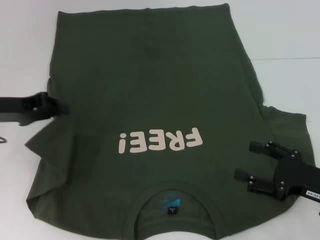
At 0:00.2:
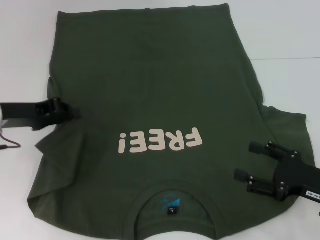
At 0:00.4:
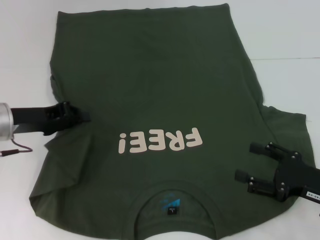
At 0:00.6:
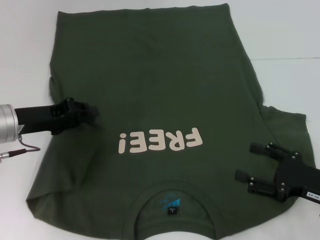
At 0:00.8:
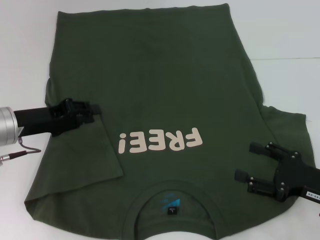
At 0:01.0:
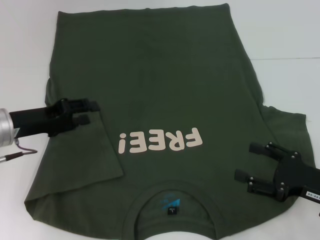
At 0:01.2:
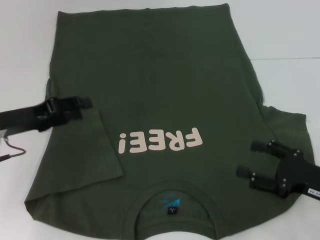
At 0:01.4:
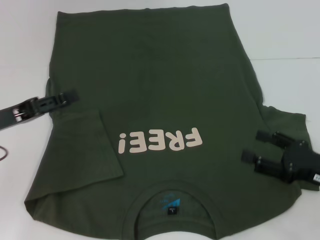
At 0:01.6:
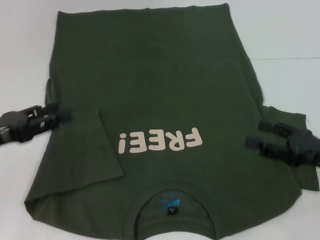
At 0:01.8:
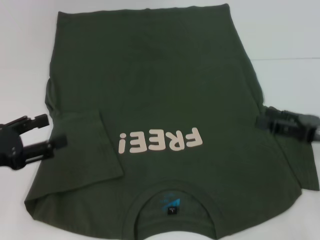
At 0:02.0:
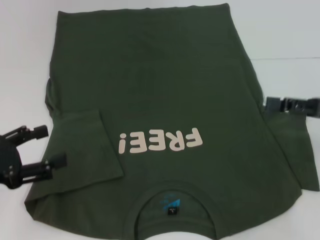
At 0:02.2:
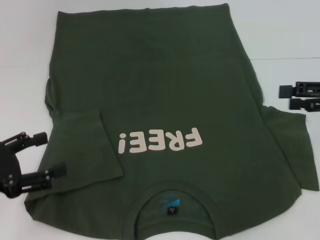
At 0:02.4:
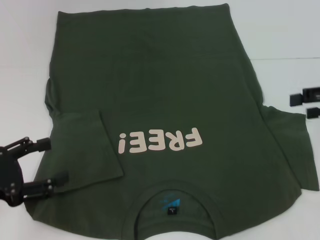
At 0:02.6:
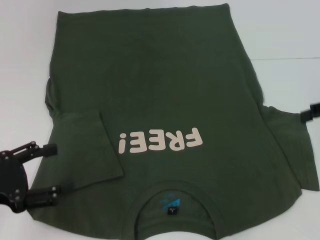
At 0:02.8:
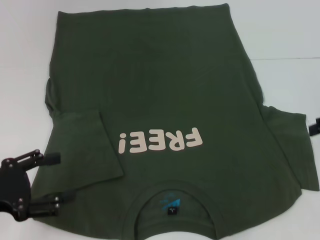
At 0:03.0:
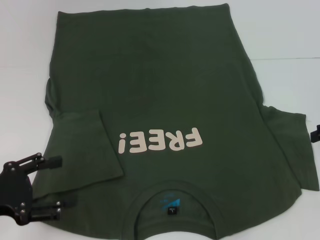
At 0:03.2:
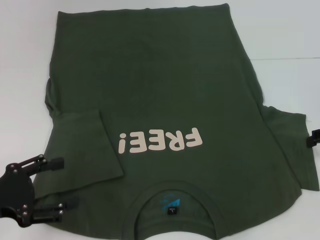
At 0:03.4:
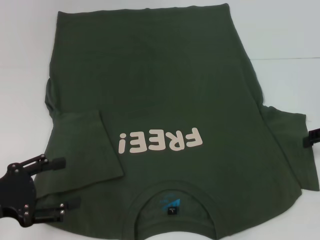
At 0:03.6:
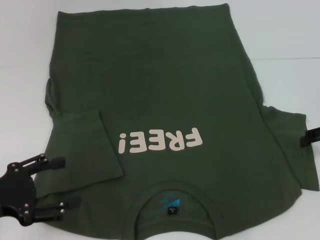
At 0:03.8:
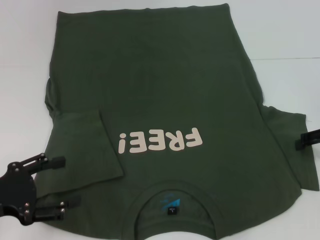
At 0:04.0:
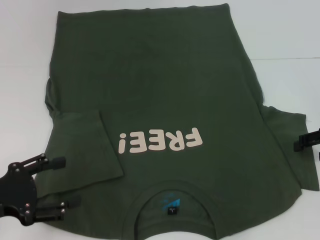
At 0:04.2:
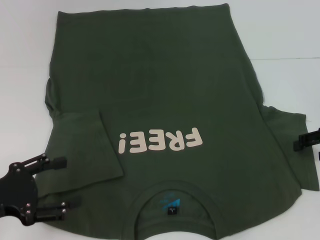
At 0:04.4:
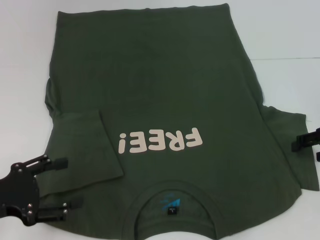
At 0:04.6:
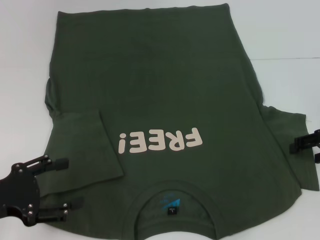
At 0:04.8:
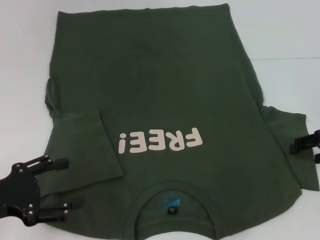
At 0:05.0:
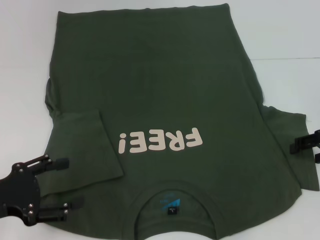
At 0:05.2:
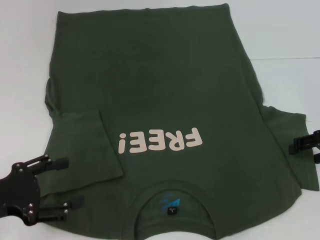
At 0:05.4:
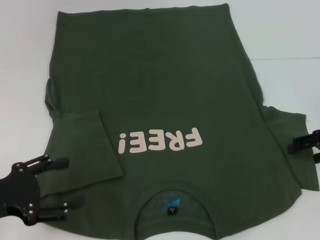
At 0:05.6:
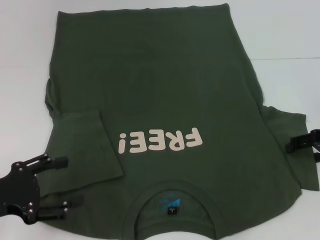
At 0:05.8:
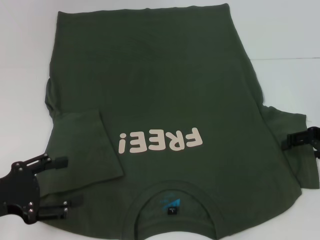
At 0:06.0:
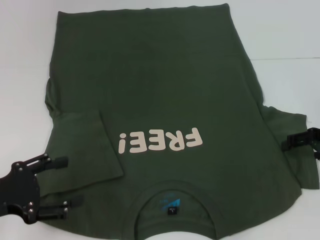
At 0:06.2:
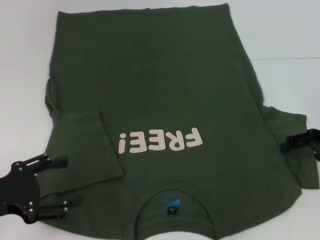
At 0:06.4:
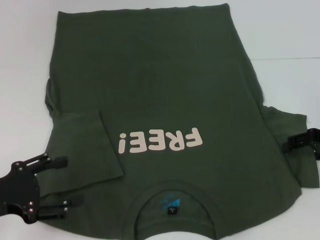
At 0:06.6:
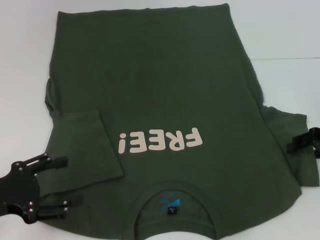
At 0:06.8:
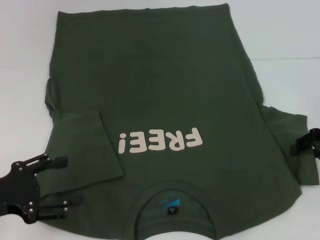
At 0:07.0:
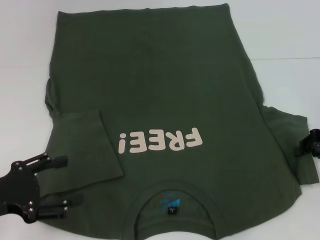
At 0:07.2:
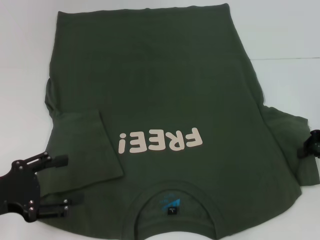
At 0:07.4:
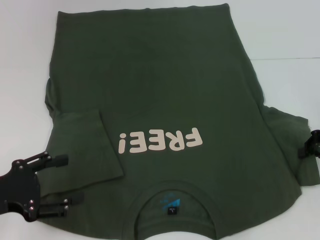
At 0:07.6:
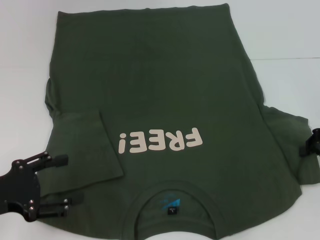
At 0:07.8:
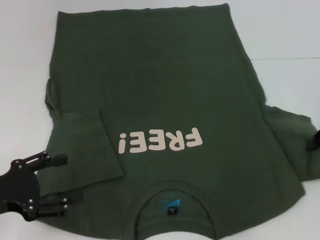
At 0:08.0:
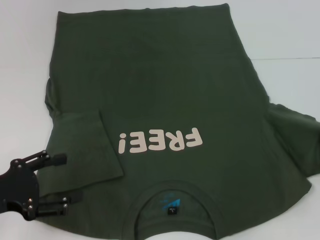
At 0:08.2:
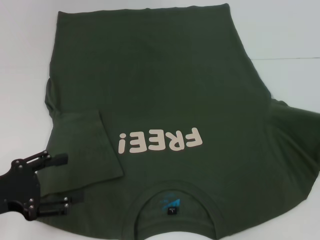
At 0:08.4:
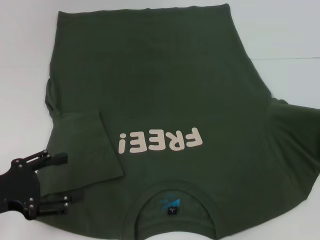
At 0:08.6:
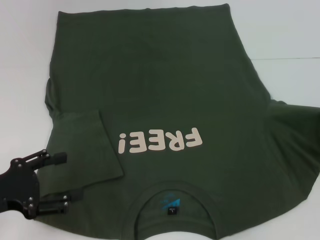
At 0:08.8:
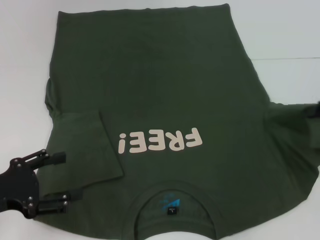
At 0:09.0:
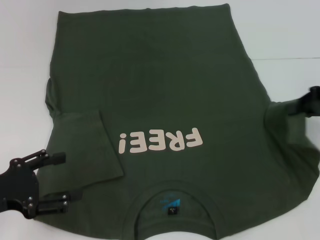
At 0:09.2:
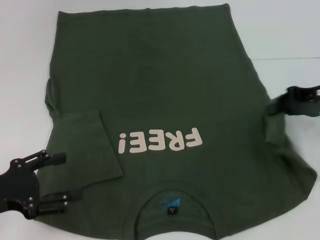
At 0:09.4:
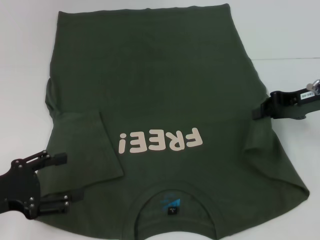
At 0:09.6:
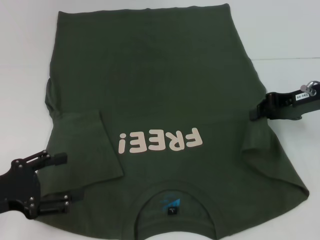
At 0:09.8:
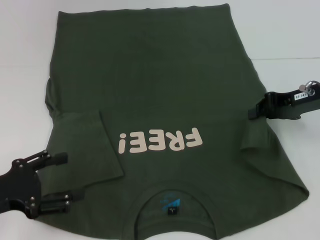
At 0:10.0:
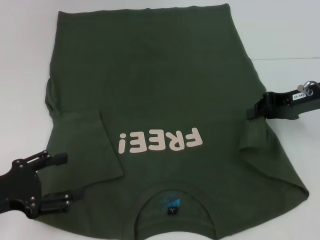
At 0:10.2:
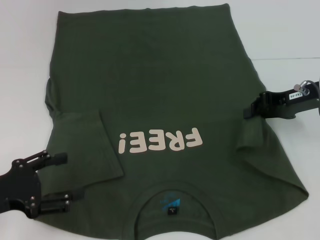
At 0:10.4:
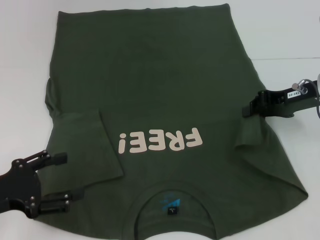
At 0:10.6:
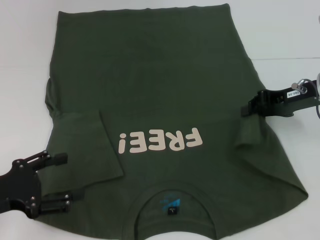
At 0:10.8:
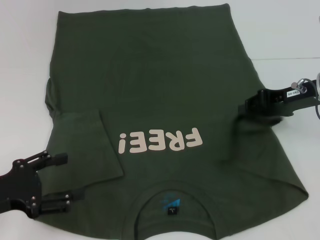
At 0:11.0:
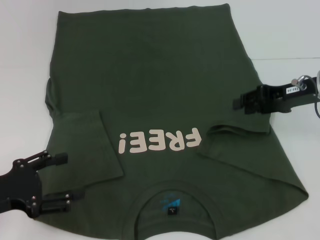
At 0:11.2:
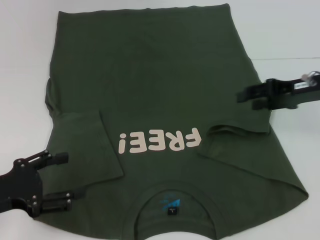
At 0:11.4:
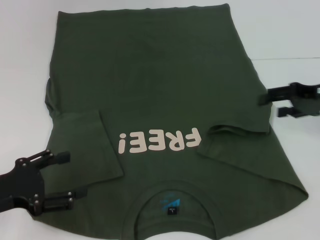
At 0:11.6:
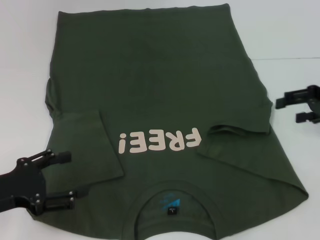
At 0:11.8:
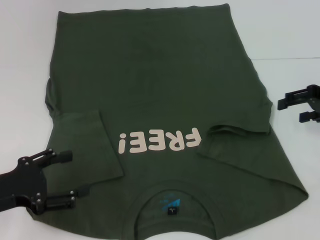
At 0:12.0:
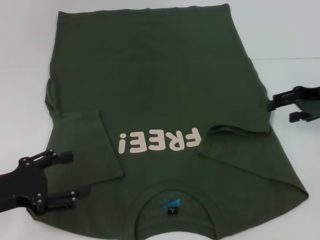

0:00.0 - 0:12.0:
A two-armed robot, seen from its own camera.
0:00.0 - 0:01.6: The left gripper heads backward, covering approximately 10 cm, and opens.
0:01.6 - 0:03.0: The left gripper travels backward by some 5 cm, while the right gripper goes some 15 cm forward, upward and to the right.
0:03.0 - 0:04.4: The grippers move only a little.
0:04.4 - 0:06.0: Neither gripper changes place.
0:06.0 - 0:07.6: The right gripper closes its fingers.
0:07.6 - 0:09.0: The right gripper moves upward, approximately 5 cm.
0:09.0 - 0:10.4: The right gripper moves to the left, about 5 cm.
0:10.4 - 0:12.0: The right gripper opens.

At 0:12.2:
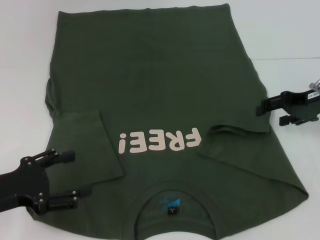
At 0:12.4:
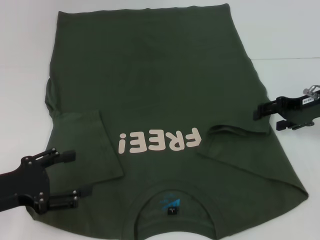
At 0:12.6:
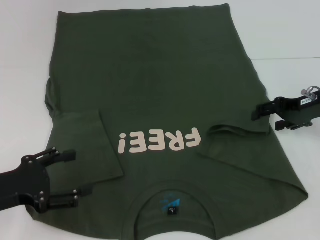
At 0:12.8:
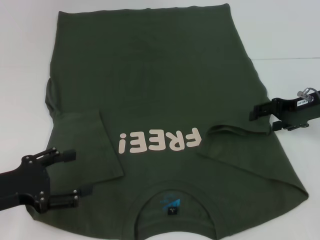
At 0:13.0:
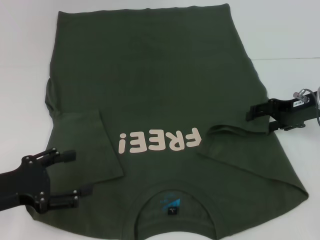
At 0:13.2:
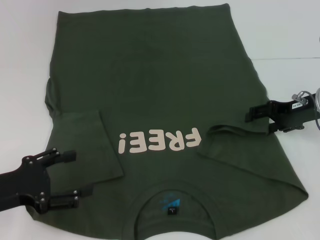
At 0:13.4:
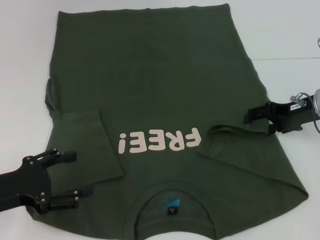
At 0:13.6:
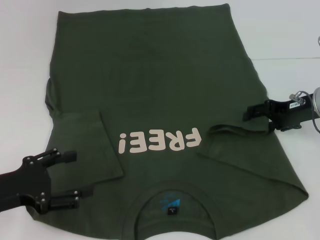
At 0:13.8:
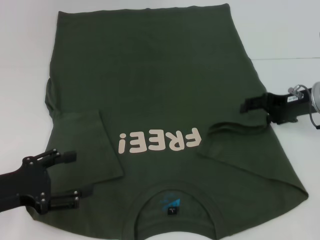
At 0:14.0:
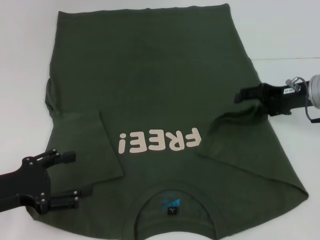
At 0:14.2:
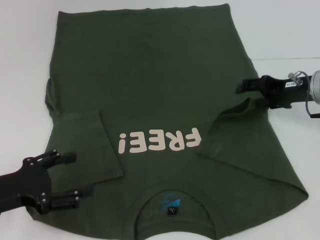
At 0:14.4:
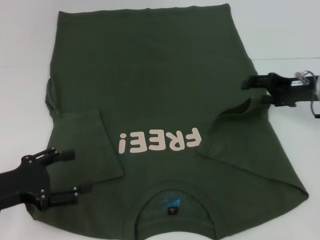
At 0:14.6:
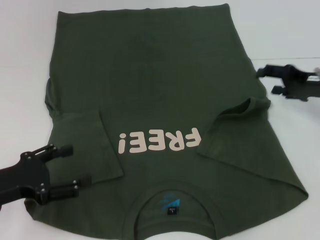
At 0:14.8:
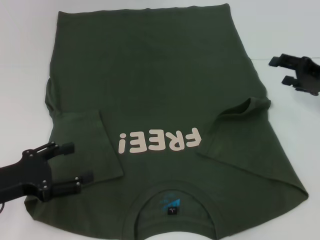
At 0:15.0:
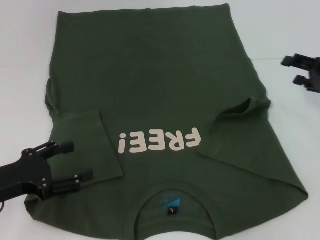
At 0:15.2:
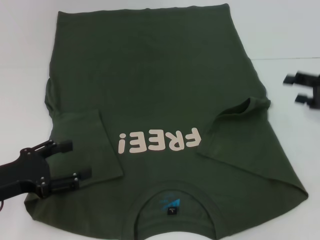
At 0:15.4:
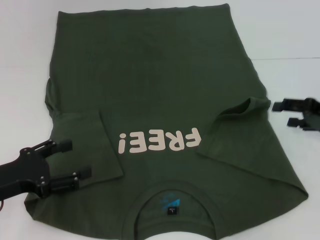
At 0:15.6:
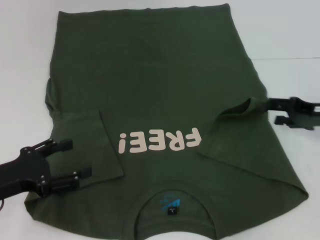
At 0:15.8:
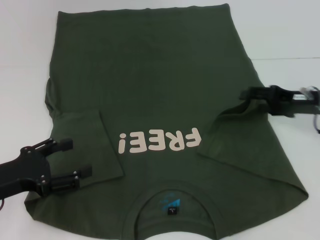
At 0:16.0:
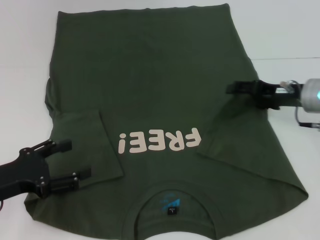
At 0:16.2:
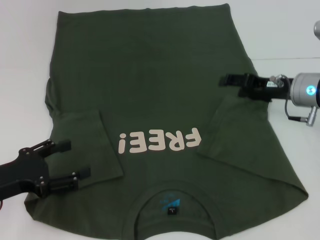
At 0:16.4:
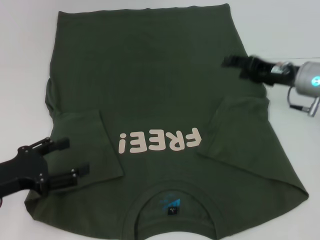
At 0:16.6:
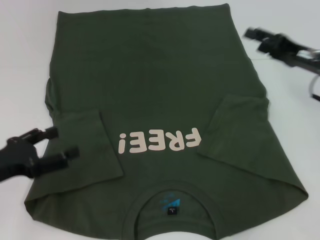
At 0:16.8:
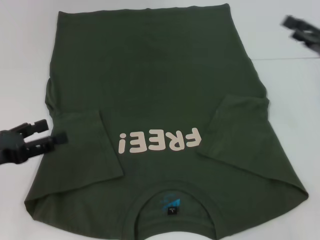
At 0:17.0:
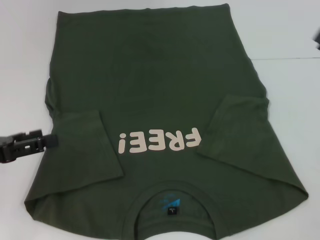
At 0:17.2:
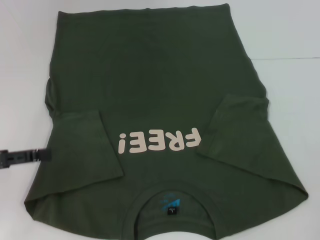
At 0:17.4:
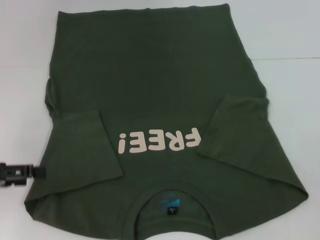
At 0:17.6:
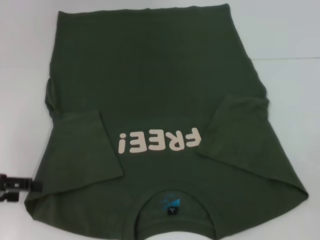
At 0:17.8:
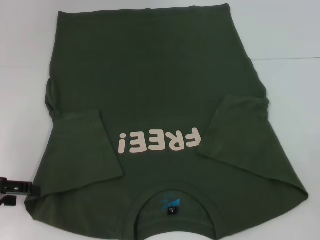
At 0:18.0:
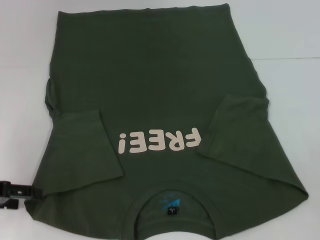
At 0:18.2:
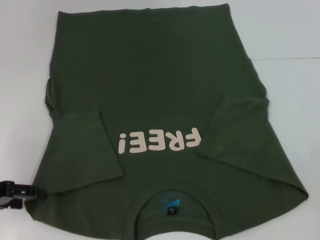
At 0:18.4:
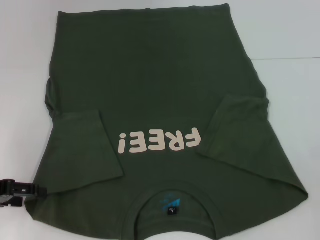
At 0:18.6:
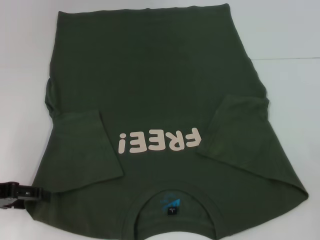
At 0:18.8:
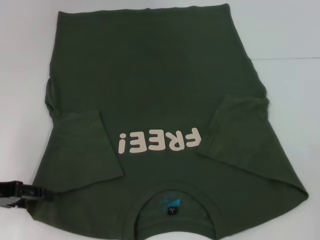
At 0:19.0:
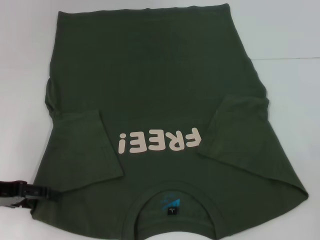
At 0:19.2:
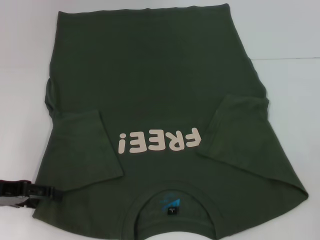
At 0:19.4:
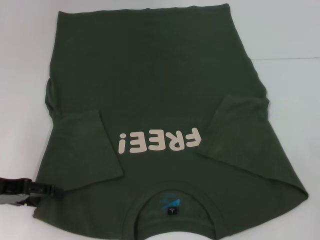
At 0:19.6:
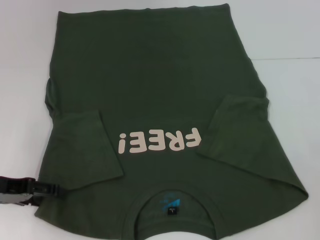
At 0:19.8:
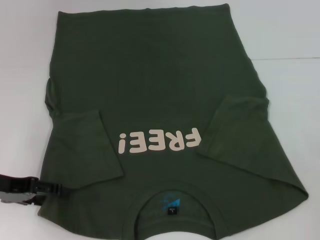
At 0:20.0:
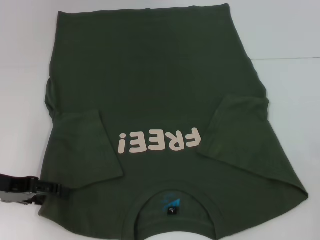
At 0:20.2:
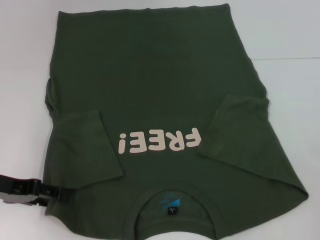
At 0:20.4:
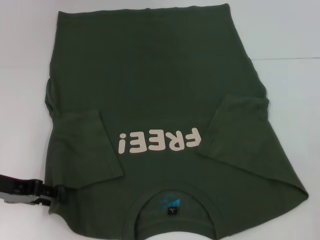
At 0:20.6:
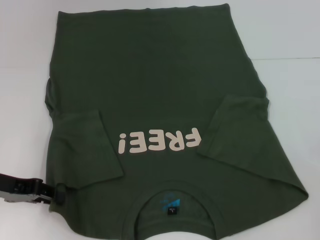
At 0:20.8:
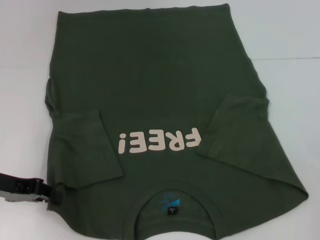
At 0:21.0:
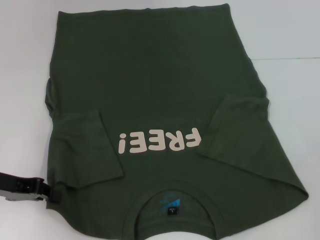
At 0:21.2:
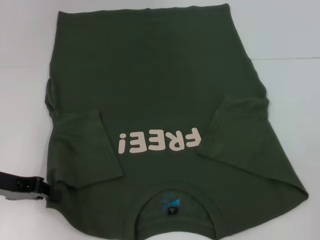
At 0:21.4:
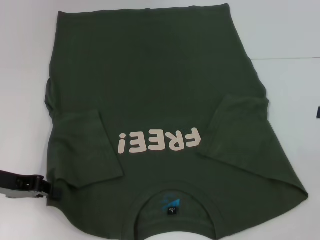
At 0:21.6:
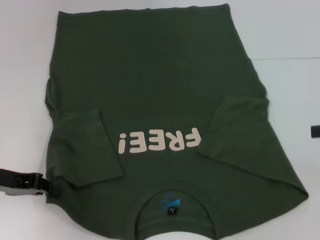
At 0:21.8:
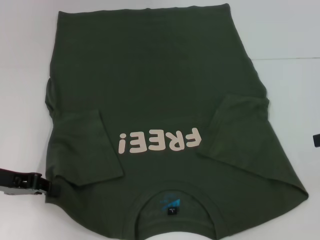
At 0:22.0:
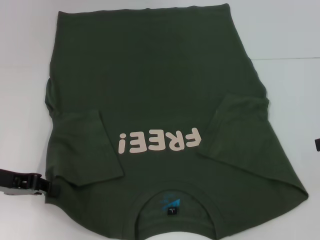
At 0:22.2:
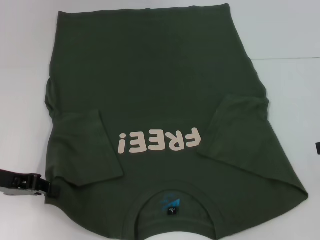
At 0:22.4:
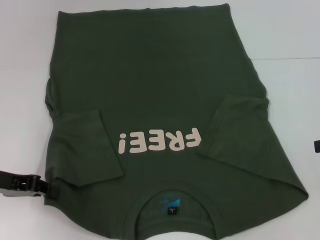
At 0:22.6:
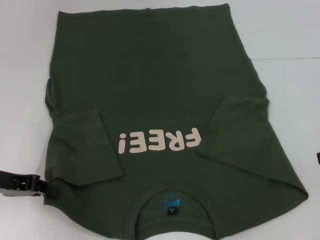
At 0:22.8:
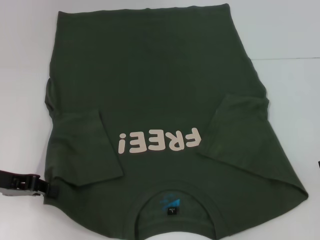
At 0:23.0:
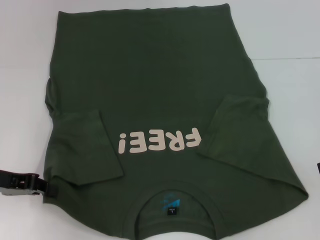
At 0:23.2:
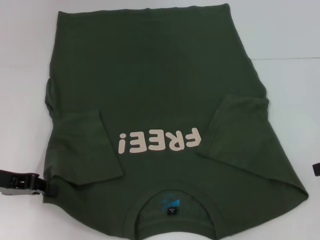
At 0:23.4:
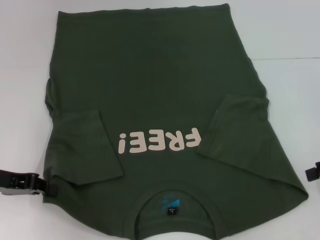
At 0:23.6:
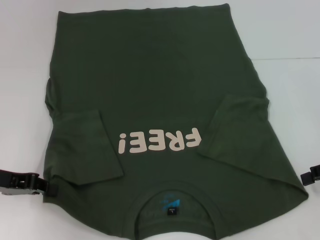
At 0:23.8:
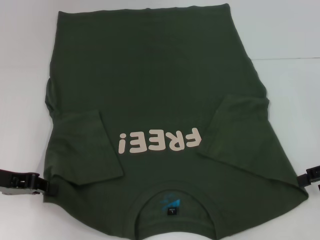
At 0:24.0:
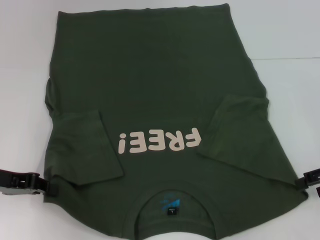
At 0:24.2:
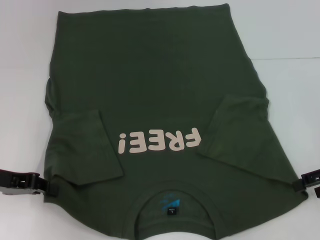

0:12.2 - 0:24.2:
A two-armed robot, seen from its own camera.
Step, 0:12.2 - 0:16.2: Fold the bottom right sleeve with your right hand.
Step, 0:16.4 - 0:21.0: Grab the bottom left corner with your left hand.
0:12.2 - 0:13.8: The grippers stay close to where they were, moving slightly.
0:13.8 - 0:15.2: The right gripper travels to the right by some 10 cm.
0:15.2 - 0:16.6: The right gripper goes about 5 cm to the left.
0:16.6 - 0:18.2: The left gripper ends up approximately 5 cm from where it was. Meanwhile the right gripper is displaced to the right and backward by some 20 cm.
0:18.2 - 0:19.8: There are only small adjustments of the grippers.
0:19.8 - 0:21.2: The left gripper closes.
0:22.6 - 0:24.2: The right gripper changes place by some 5 cm.
